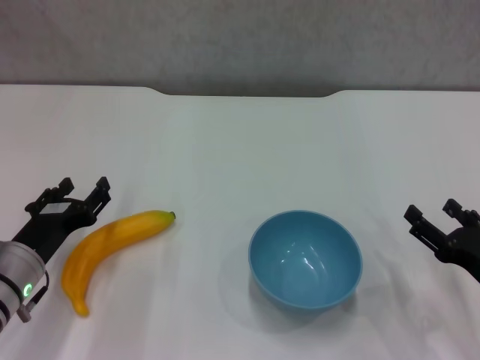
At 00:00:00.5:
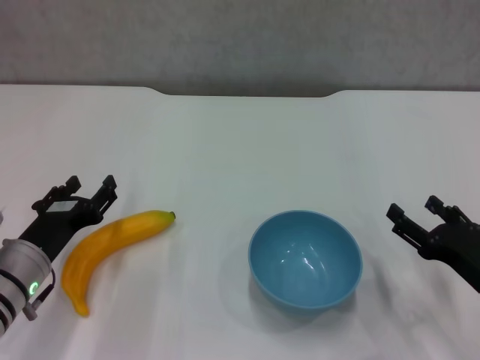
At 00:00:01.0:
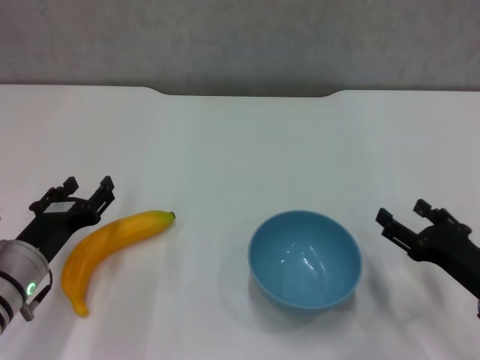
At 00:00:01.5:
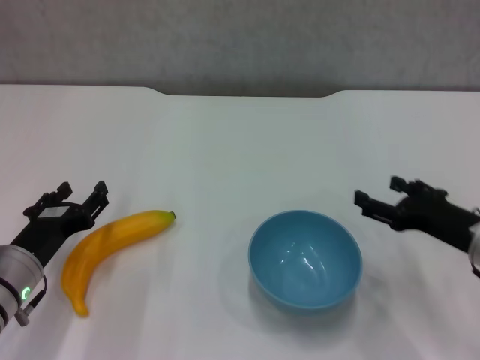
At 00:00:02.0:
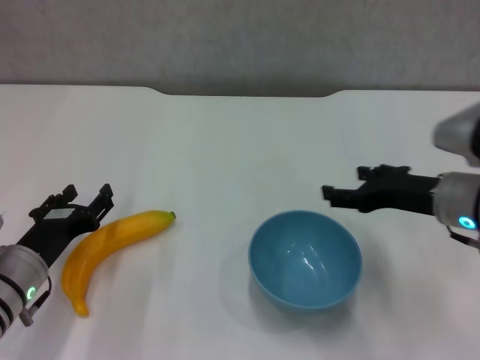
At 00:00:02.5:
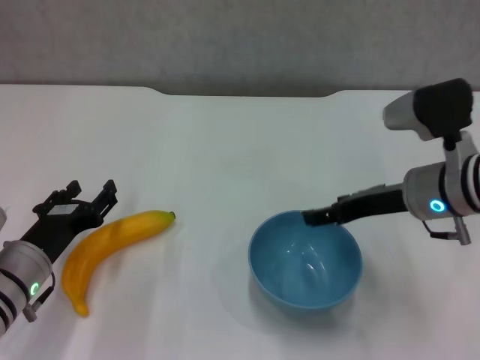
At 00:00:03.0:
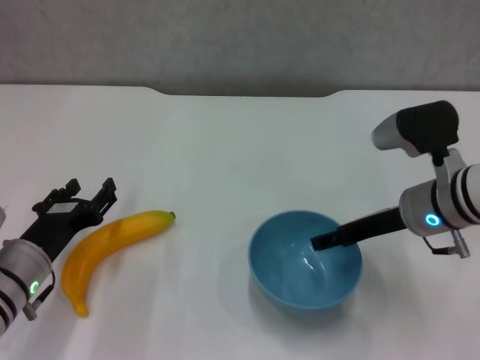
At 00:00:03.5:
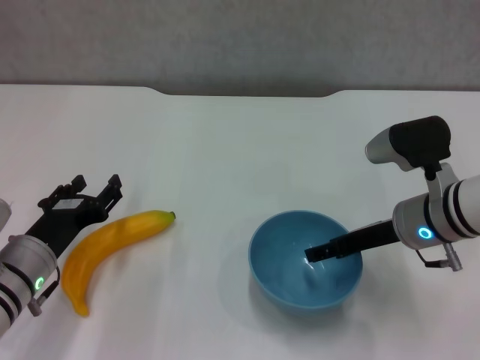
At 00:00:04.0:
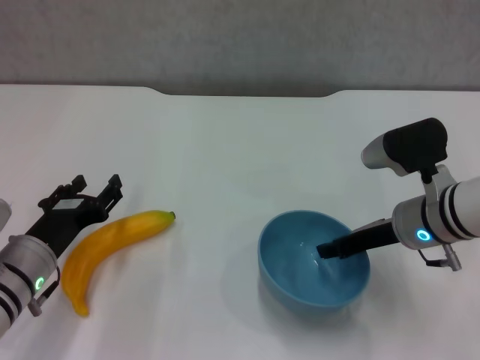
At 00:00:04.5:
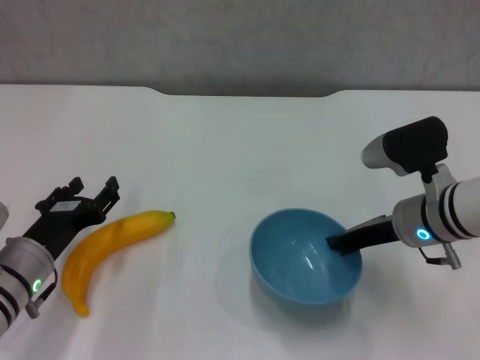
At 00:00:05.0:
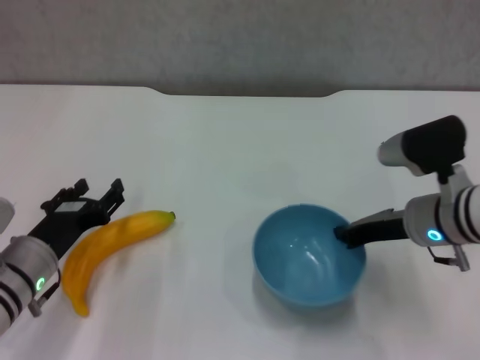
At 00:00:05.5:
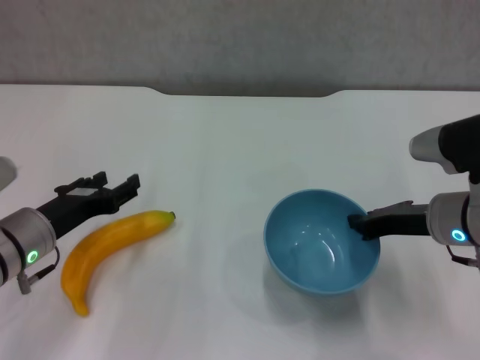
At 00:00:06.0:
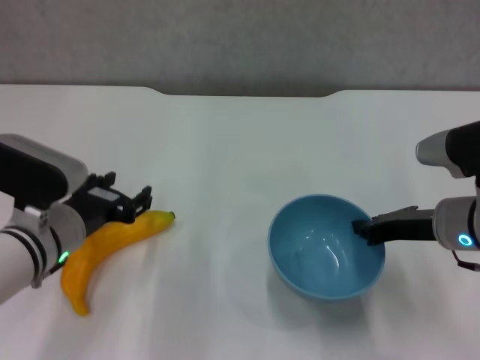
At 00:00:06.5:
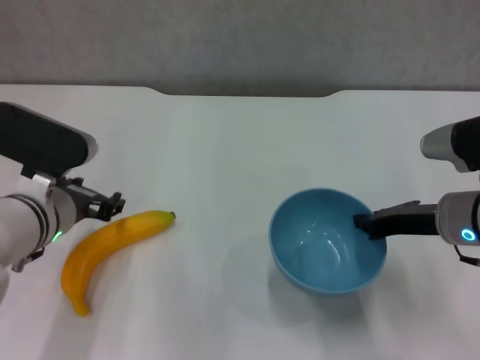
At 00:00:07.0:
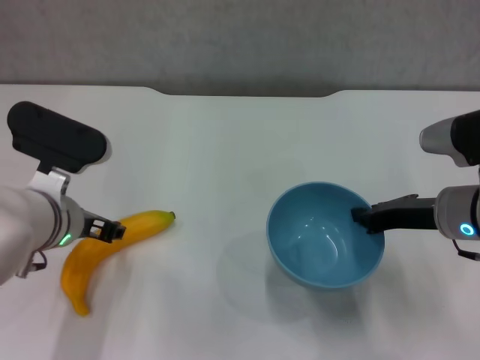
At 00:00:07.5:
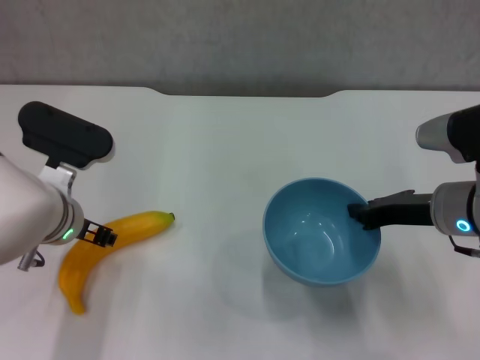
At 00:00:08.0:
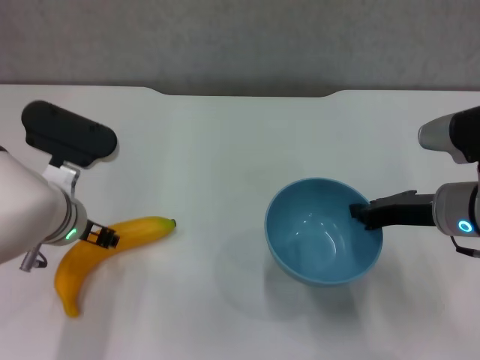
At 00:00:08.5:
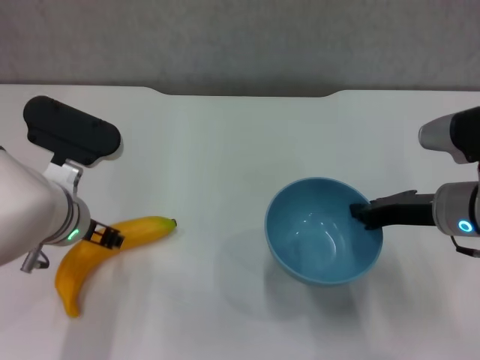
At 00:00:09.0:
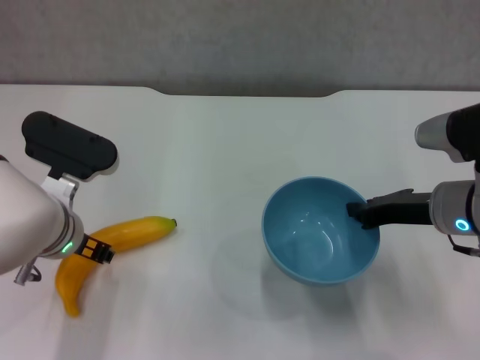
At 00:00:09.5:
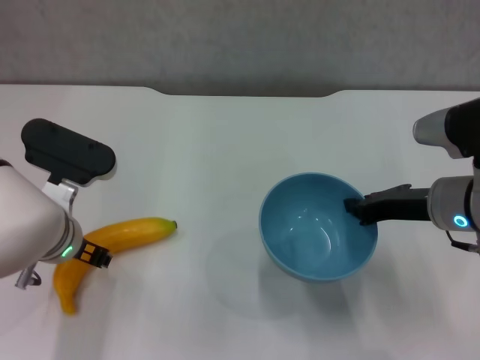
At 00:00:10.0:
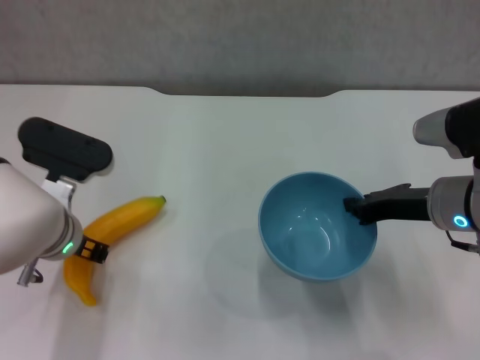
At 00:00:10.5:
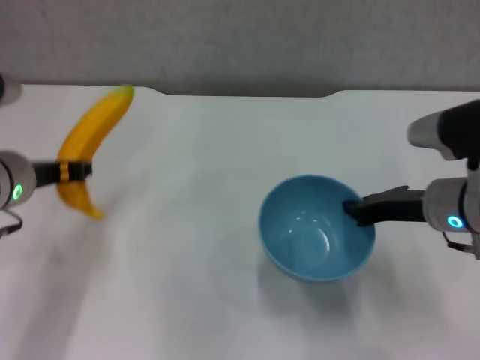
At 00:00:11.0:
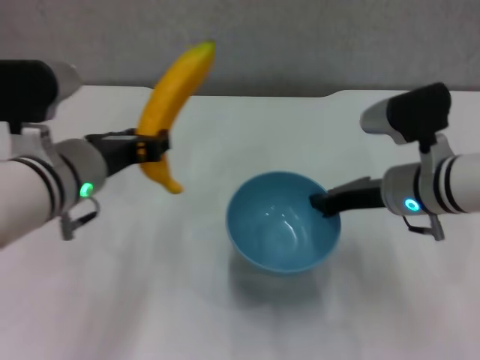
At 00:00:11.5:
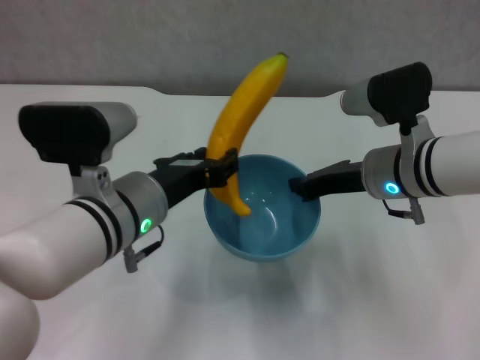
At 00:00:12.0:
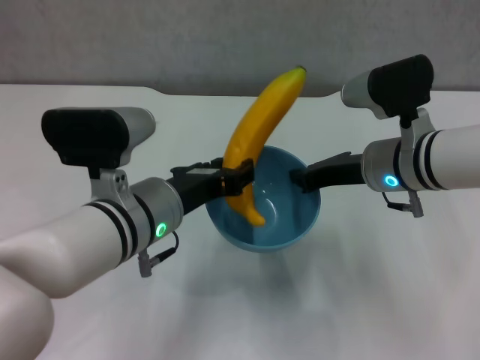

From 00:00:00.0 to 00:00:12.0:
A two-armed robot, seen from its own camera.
Step, from 00:00:00.0 to 00:00:04.5: Grasp the blue bowl with right gripper.
Step, from 00:00:05.0 to 00:00:06.0: Lift the blue bowl with right gripper.
Step, from 00:00:06.5 to 00:00:09.5: Grasp the banana with left gripper.
From 00:00:00.0 to 00:00:02.0: The right gripper is displaced forward, upward and to the left by approximately 15 cm.
From 00:00:02.0 to 00:00:04.0: The right gripper ends up about 5 cm from where it was.
From 00:00:04.0 to 00:00:06.0: The left gripper changes place by roughly 5 cm. Meanwhile the right gripper closes.
From 00:00:06.0 to 00:00:08.0: The left gripper shifts by some 5 cm.
From 00:00:08.0 to 00:00:10.0: The grippers make only small movements.
From 00:00:10.0 to 00:00:12.0: The right gripper heads to the left, covering roughly 5 cm. Meanwhile the left gripper goes some 10 cm to the right.

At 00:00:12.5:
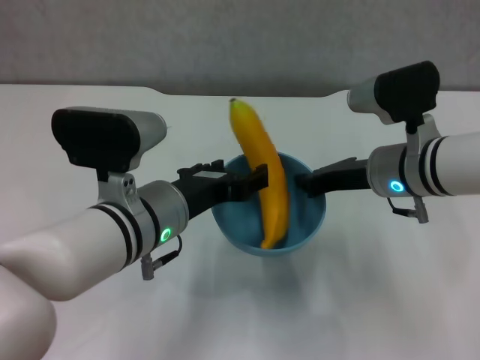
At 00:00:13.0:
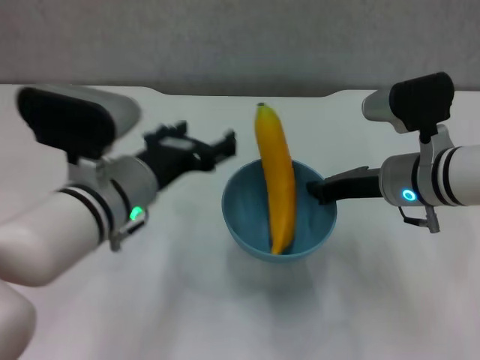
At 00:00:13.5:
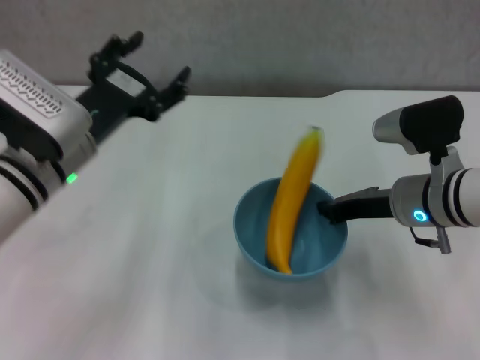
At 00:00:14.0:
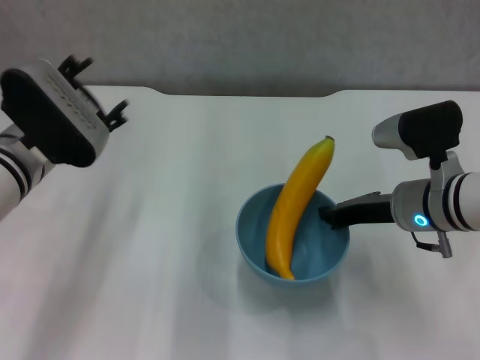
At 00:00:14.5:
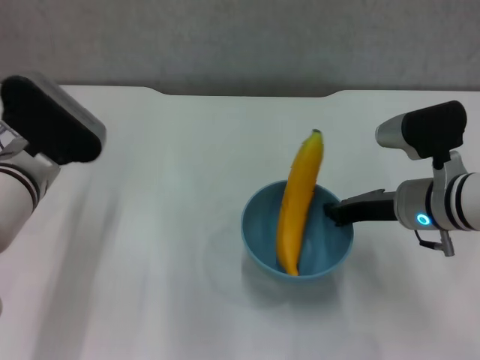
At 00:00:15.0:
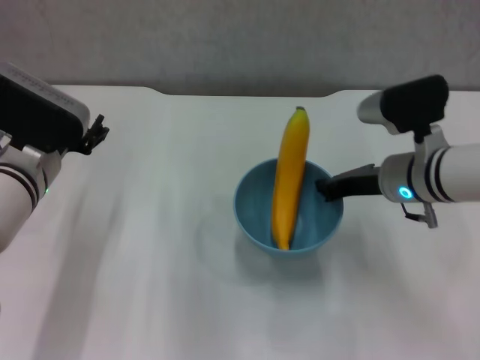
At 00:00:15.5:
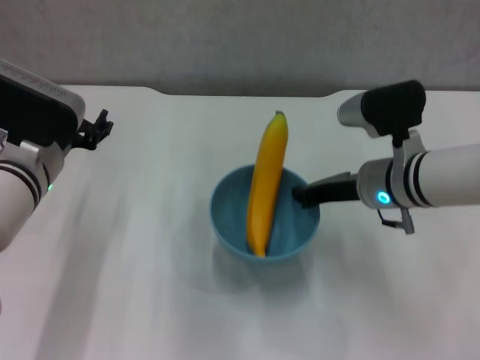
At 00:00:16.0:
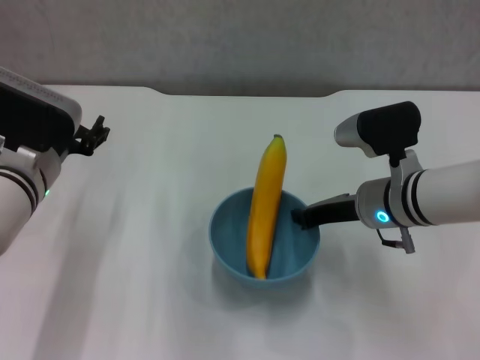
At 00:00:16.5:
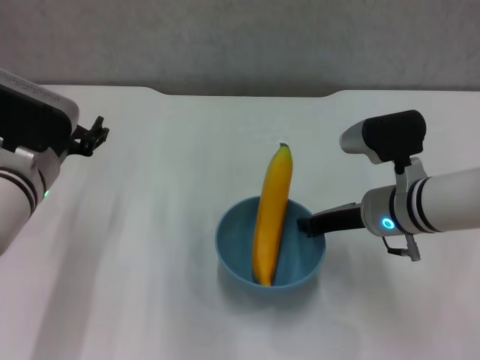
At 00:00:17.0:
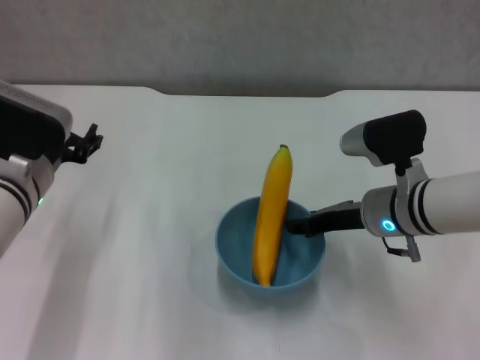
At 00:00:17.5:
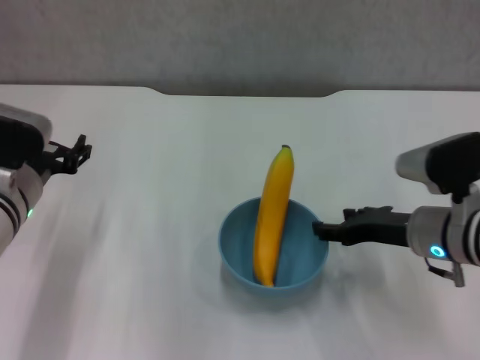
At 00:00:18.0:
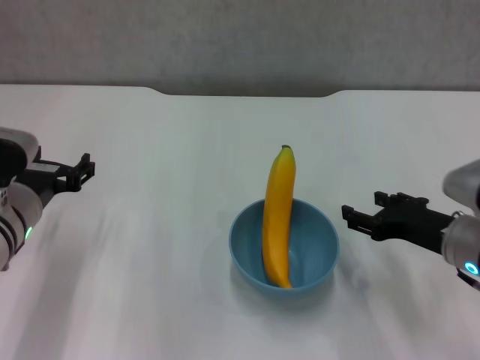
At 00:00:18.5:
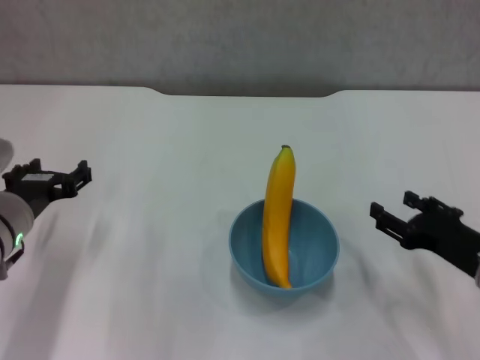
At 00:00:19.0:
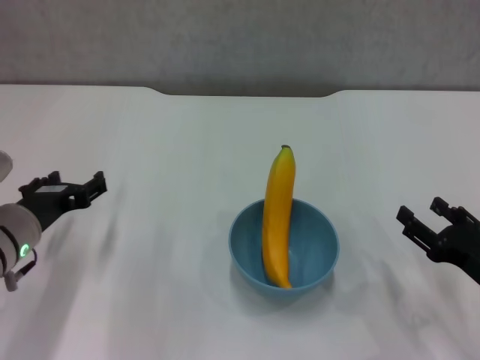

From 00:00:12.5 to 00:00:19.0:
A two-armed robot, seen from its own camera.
Step, from 00:00:13.0 to 00:00:17.0: Place the bowl on the table with right gripper.
From 00:00:12.5 to 00:00:14.5: The left gripper moves to the left and forward, about 10 cm, and opens up.
From 00:00:17.0 to 00:00:19.0: The right gripper travels to the right and backward by roughly 20 cm, and opens its fingers; the left gripper heads downward, covering some 5 cm.
